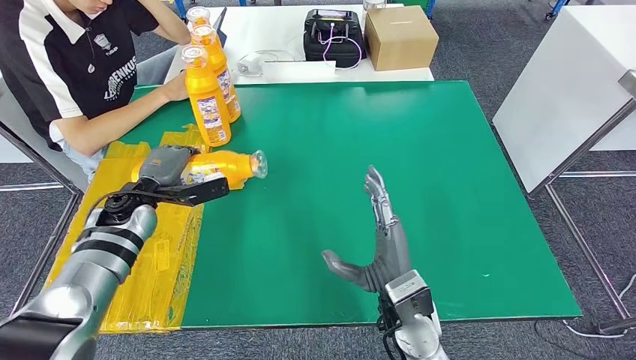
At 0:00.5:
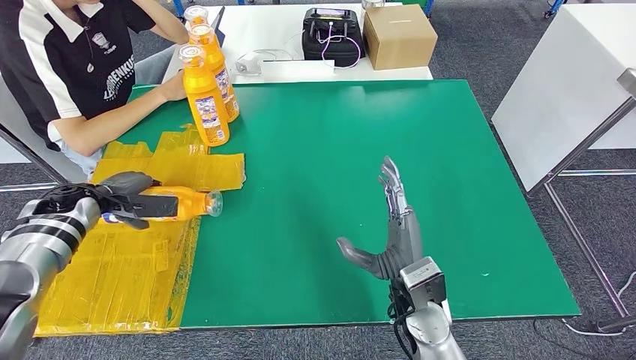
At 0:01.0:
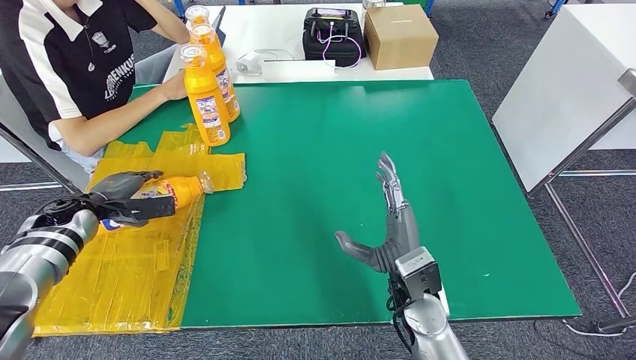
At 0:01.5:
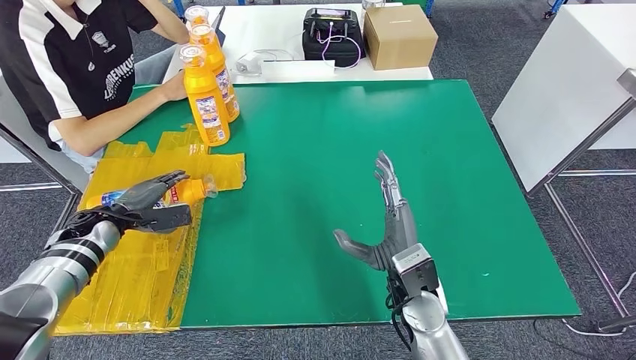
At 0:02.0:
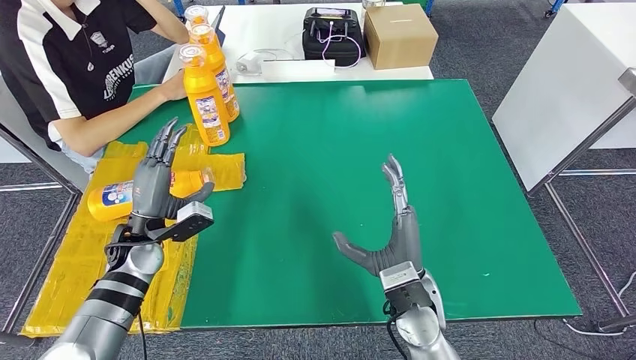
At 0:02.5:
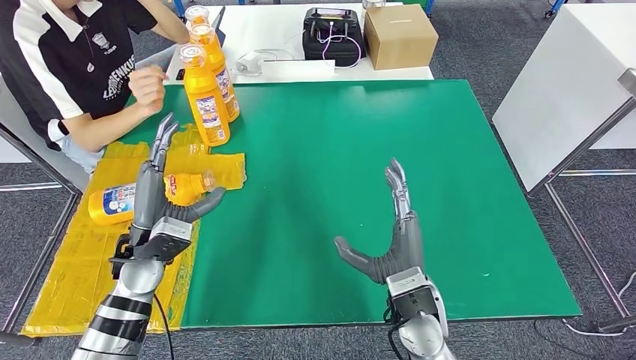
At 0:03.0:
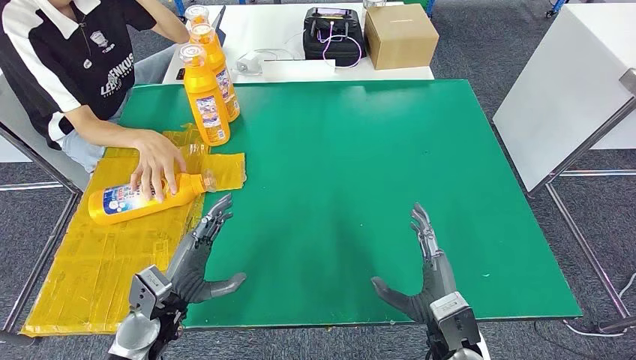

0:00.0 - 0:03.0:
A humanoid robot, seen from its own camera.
Step, 0:00.0 - 0:03.0: Flip the fast-moving consumer goods bottle to the front side.
0:00.0 - 0:01.5: The left hand is displaced to the left by some 10 cm.
0:01.5 - 0:03.0: The left hand is displaced to the right and backward by approximately 25 cm. The right hand moves backward and to the right, approximately 10 cm.
